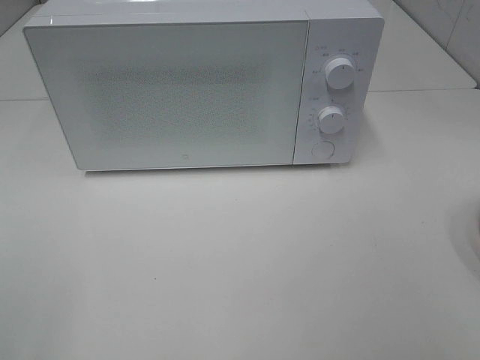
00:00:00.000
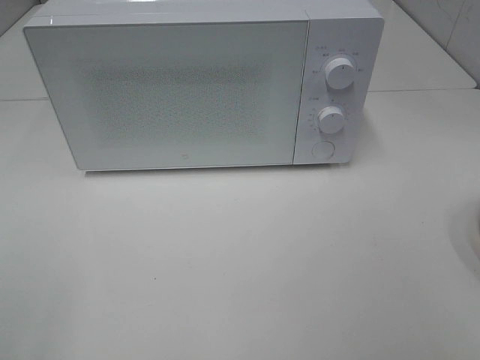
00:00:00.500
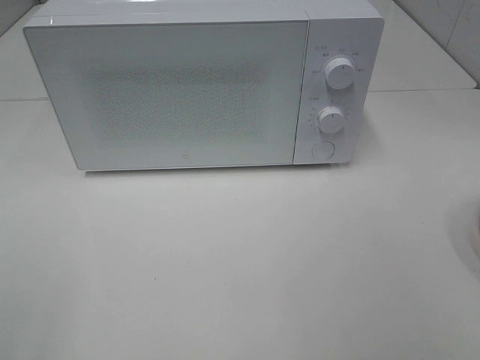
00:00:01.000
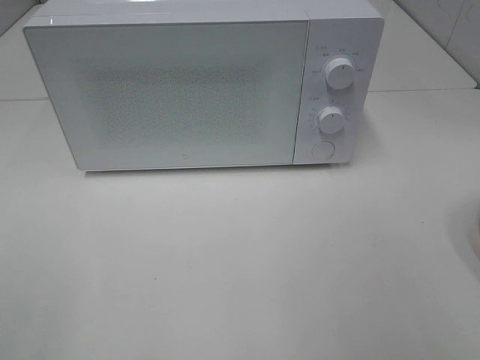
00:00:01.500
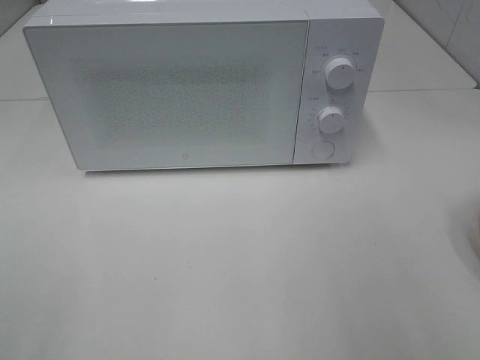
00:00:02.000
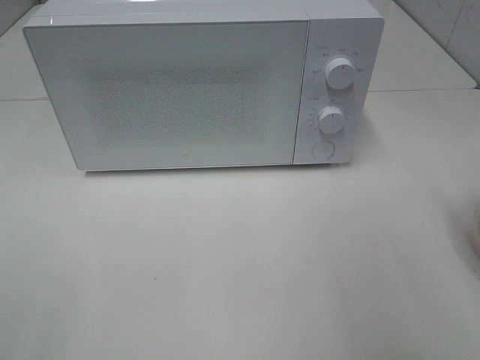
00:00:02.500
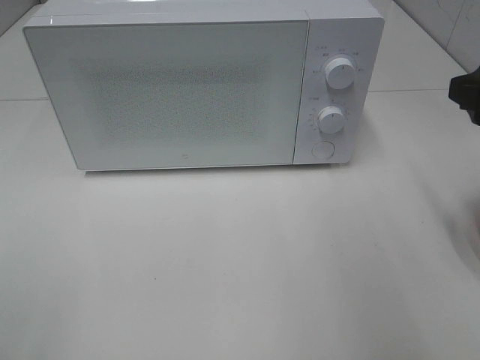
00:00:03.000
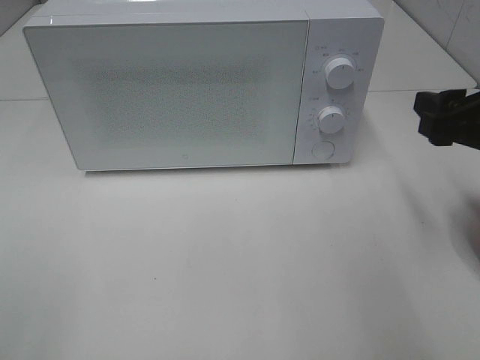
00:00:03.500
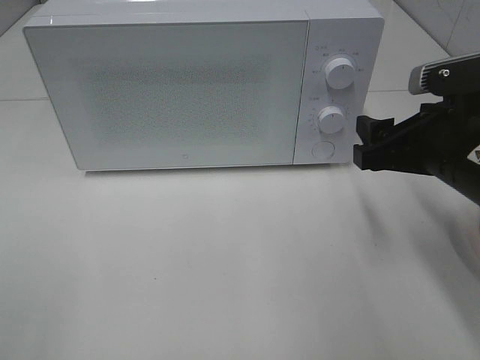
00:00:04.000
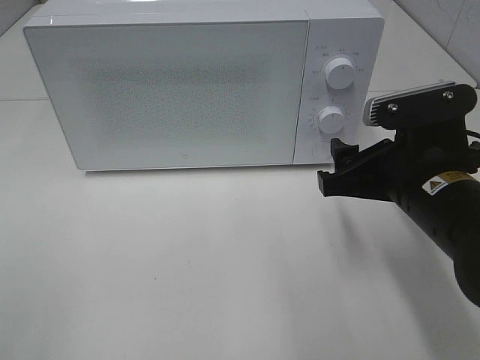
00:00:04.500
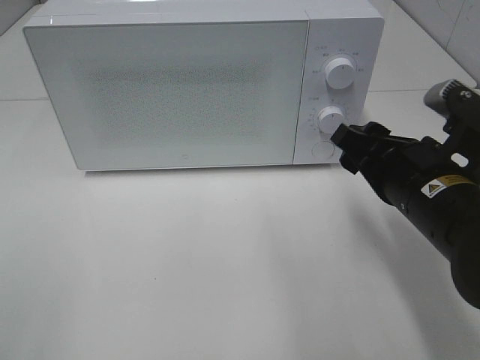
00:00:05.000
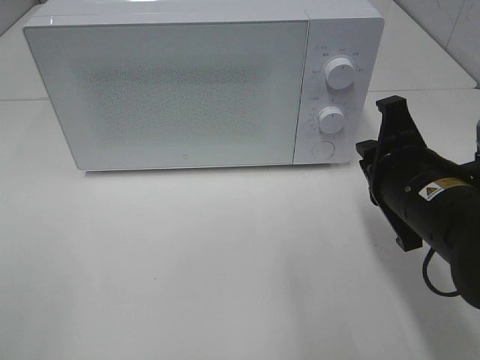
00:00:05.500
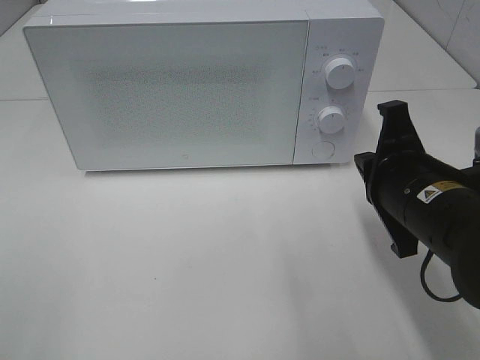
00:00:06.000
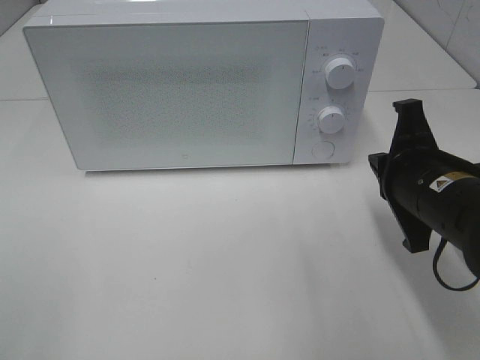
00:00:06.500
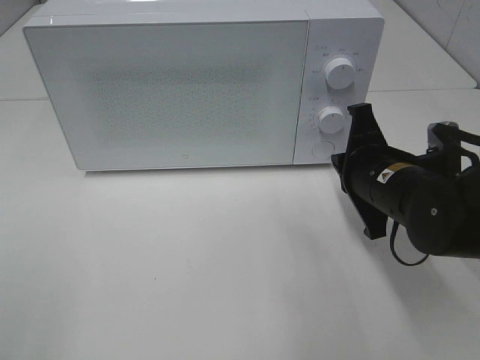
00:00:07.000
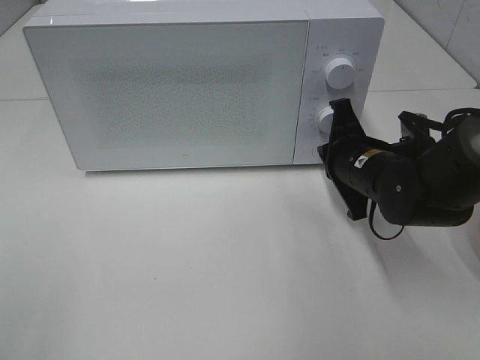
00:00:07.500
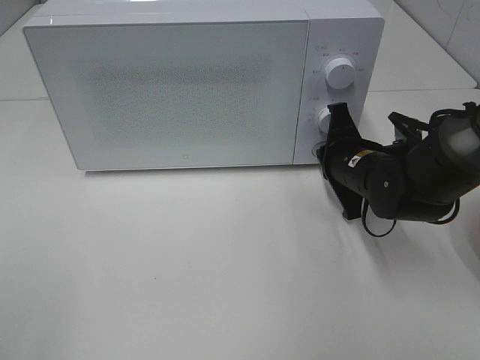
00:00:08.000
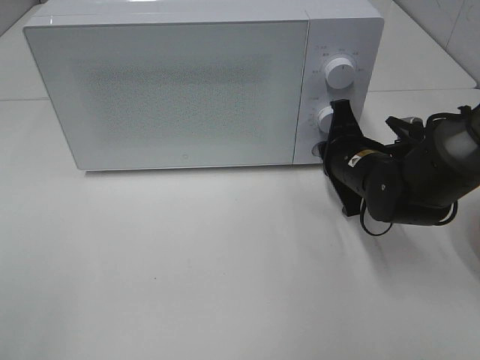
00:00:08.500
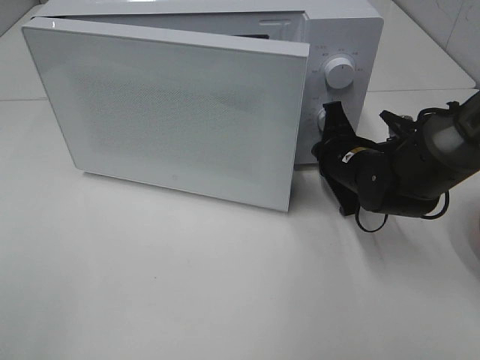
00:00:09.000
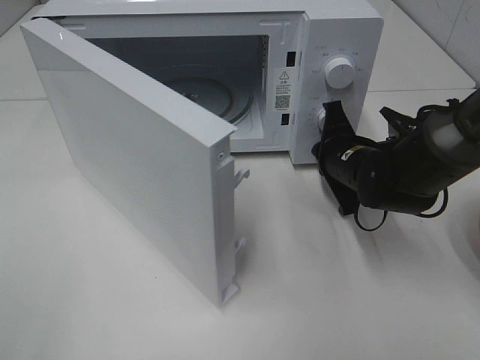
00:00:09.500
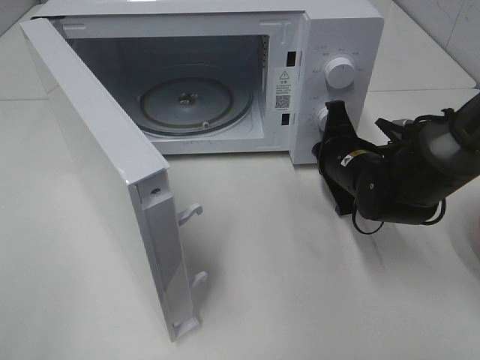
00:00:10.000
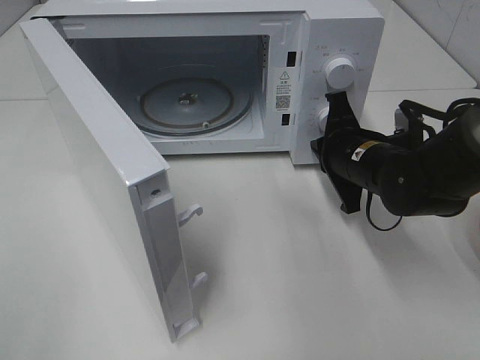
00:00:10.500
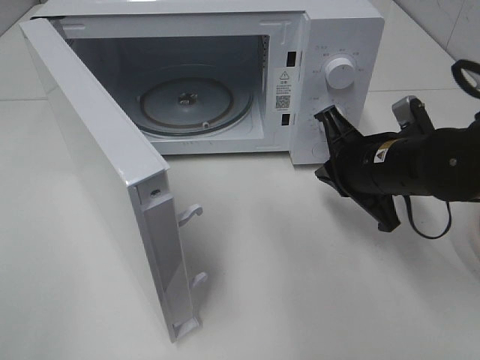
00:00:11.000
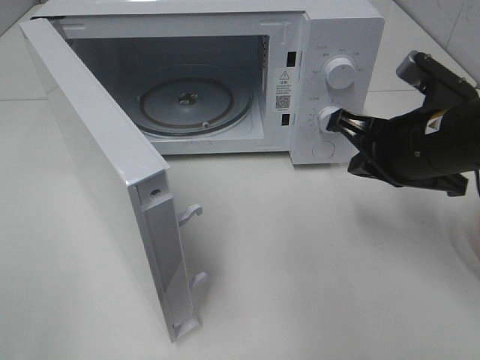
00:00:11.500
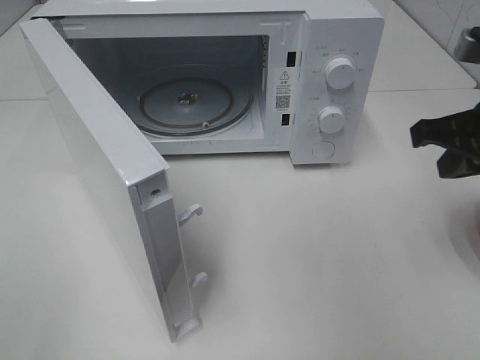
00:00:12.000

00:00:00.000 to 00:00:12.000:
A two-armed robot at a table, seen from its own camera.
Task of the whole recording: Heat the burger.
Step, 00:00:00.000 to 00:00:10.500: Right hand: press the switch.
00:00:02.000 to 00:00:04.000: The right gripper heads forward, downward and to the left, covering about 20 cm.
00:00:04.000 to 00:00:06.000: The right gripper moves about 5 cm, and closes.
00:00:06.000 to 00:00:08.000: The right gripper heads forward and downward, covering some 15 cm.
00:00:10.000 to 00:00:12.000: The right gripper is displaced upward, backward and to the right by approximately 20 cm.

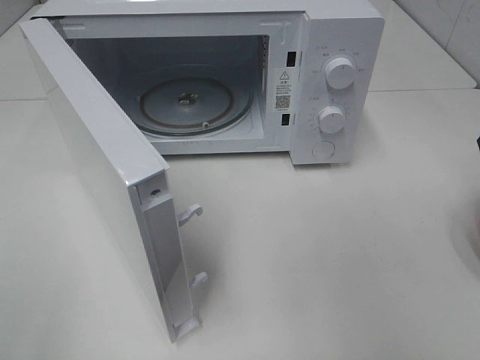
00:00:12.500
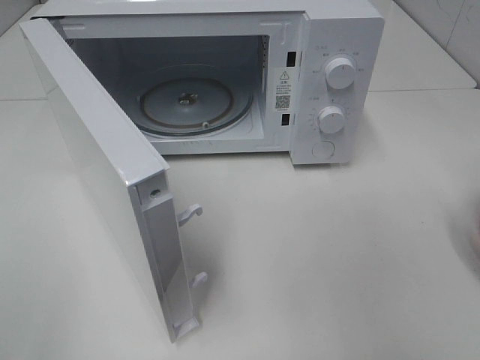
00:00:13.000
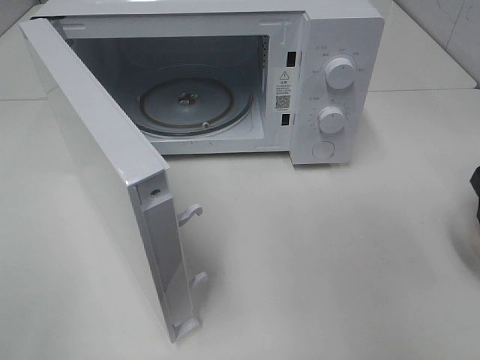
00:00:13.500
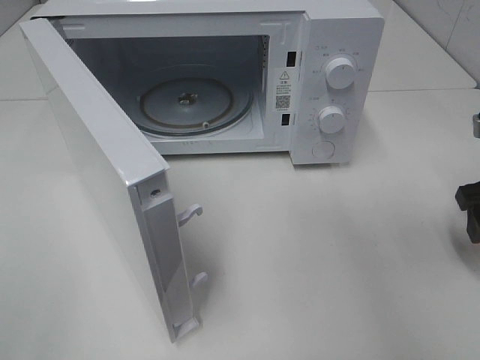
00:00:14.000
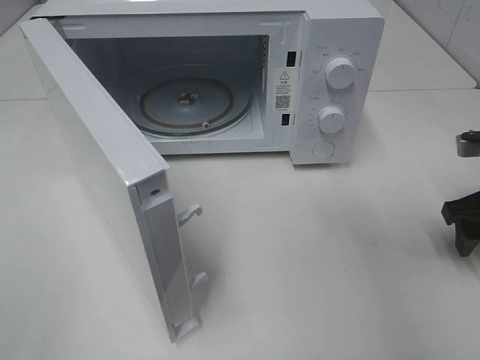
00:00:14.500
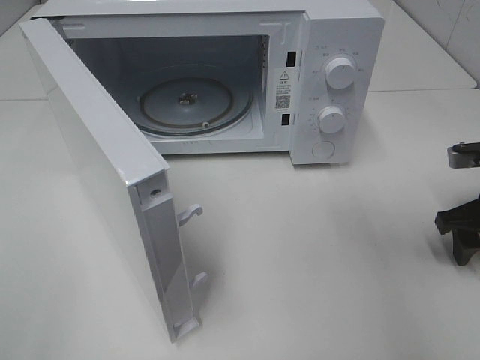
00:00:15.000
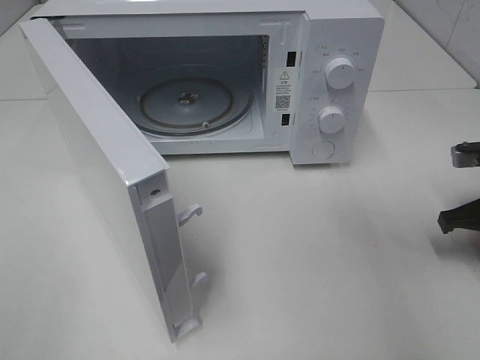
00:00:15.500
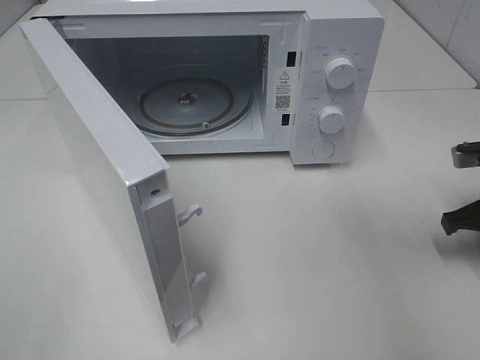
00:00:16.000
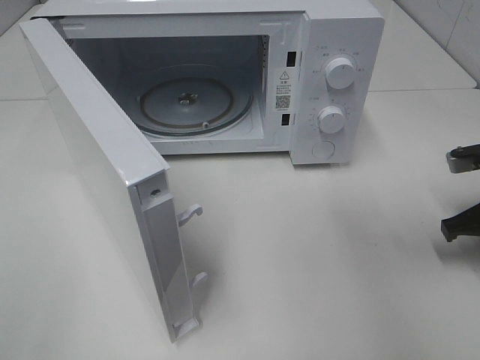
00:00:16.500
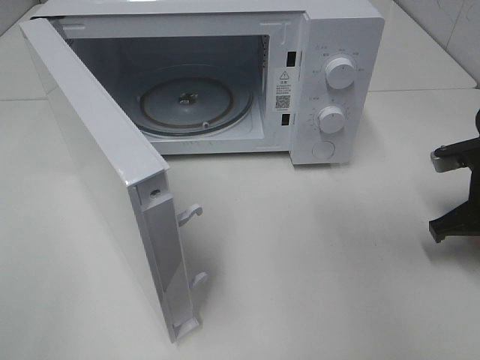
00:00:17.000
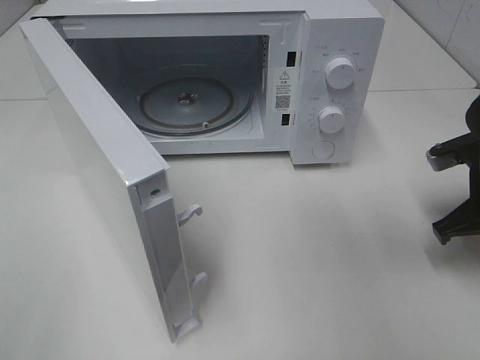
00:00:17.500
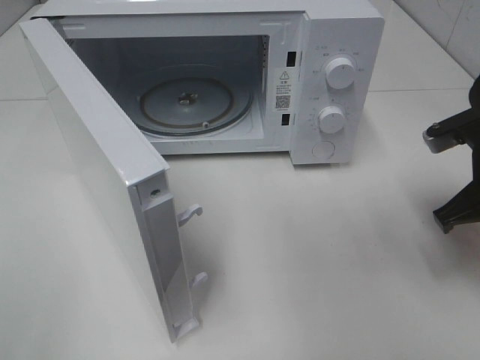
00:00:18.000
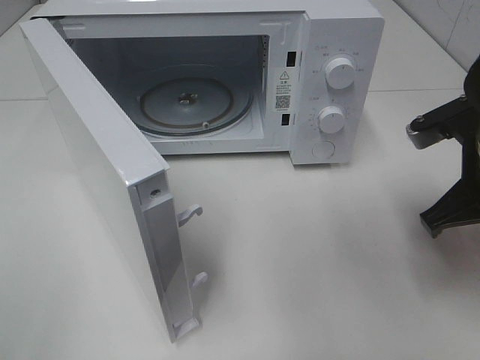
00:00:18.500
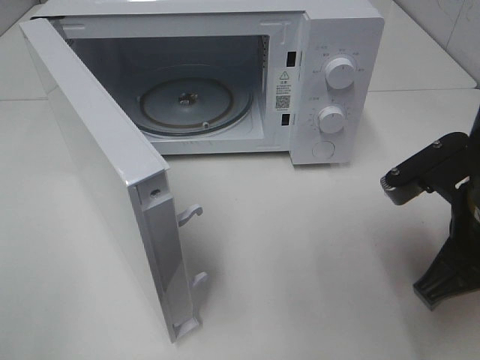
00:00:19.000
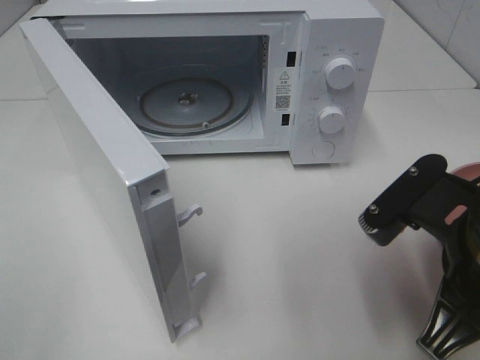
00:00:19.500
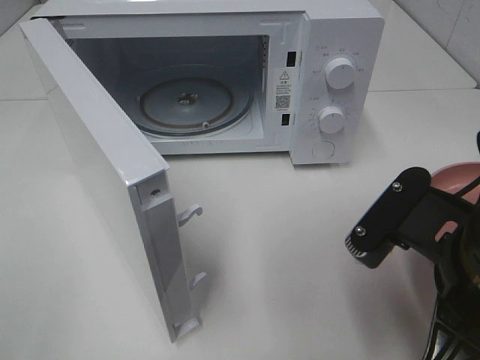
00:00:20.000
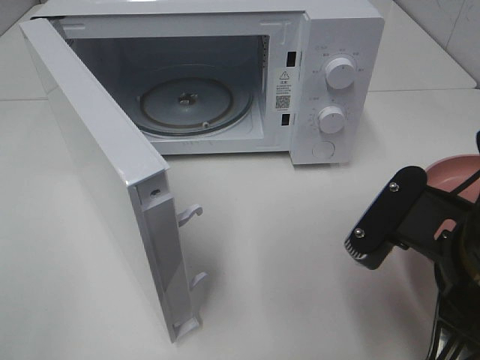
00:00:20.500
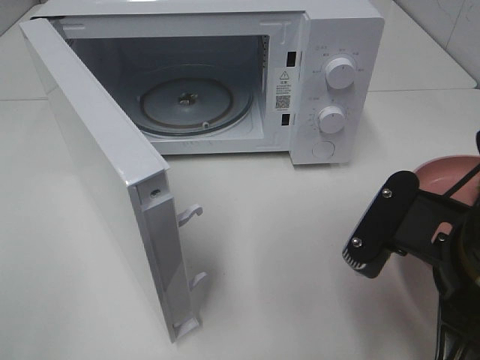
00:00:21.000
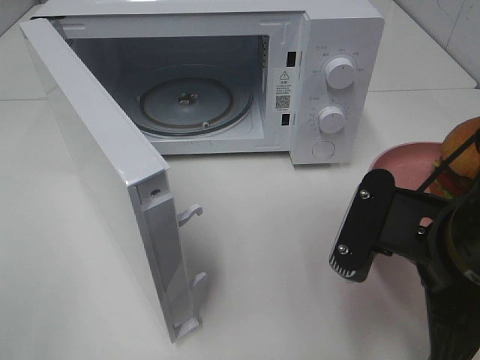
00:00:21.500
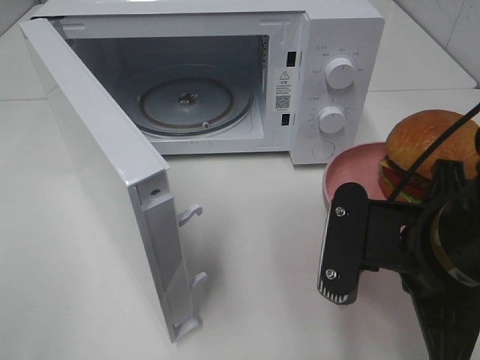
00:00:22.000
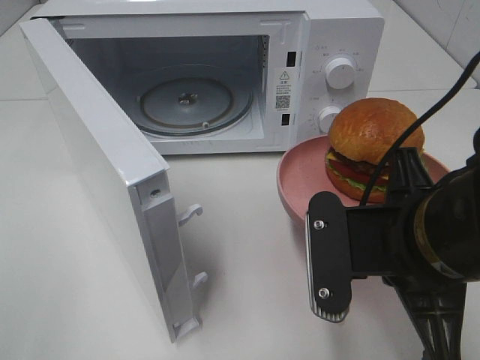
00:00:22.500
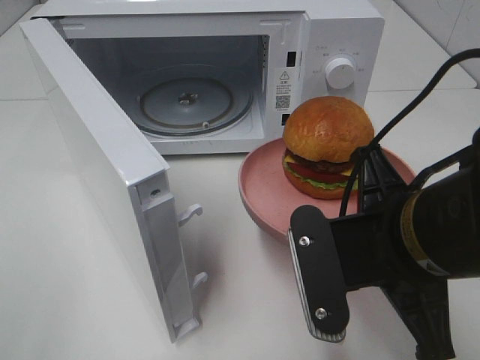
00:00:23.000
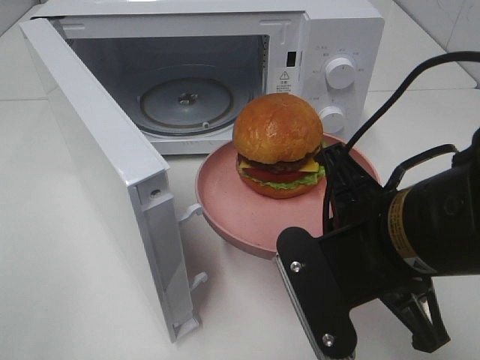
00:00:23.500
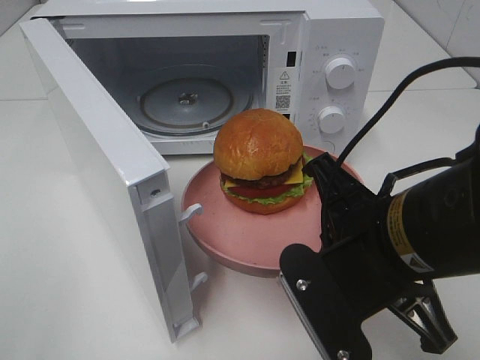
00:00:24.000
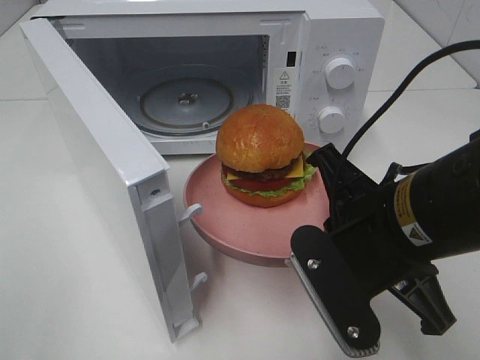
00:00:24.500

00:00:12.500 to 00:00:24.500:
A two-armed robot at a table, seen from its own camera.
Task of the whole recording: Heat the burger.
Step, 00:00:12.500 to 00:00:15.500: Right hand: grab the plate with the hamburger.
00:00:12.500 to 00:00:14.500: The right gripper is displaced downward by about 10 cm.
00:00:14.500 to 00:00:16.500: The right gripper closes up.
00:00:16.500 to 00:00:18.500: The right gripper shifts approximately 10 cm to the left and upward.
00:00:18.500 to 00:00:20.500: The right gripper is displaced backward and to the left by some 15 cm.

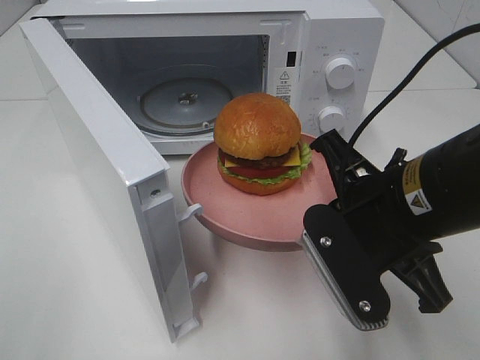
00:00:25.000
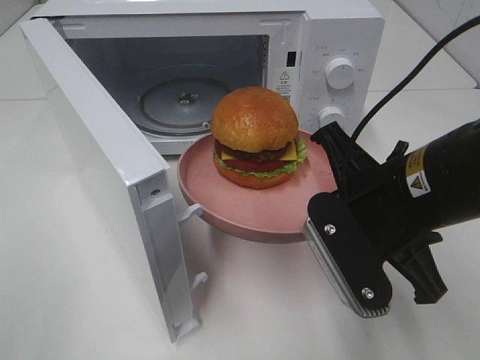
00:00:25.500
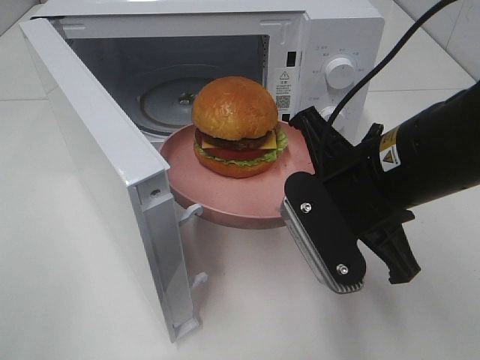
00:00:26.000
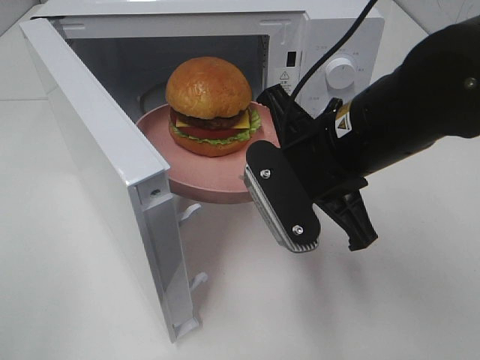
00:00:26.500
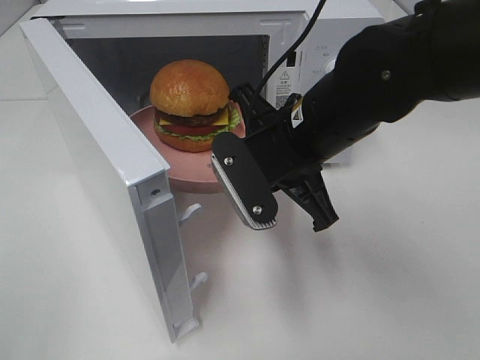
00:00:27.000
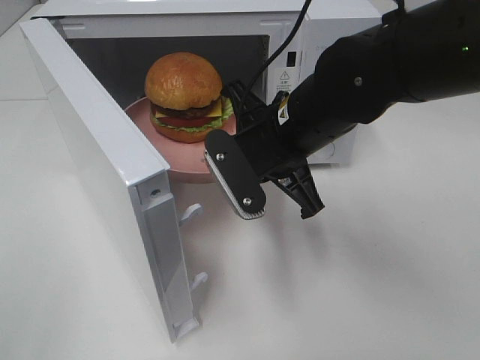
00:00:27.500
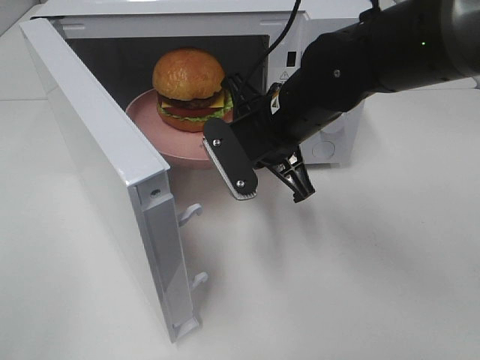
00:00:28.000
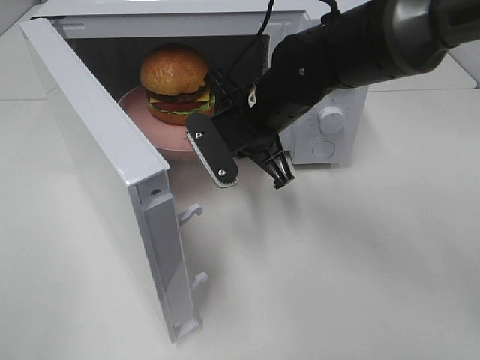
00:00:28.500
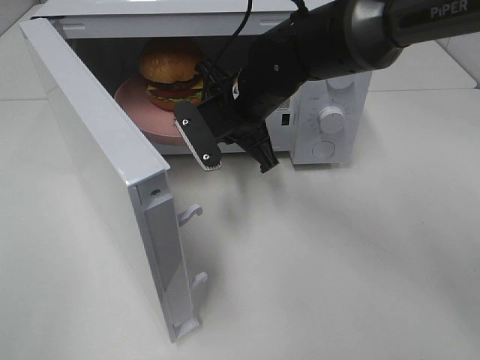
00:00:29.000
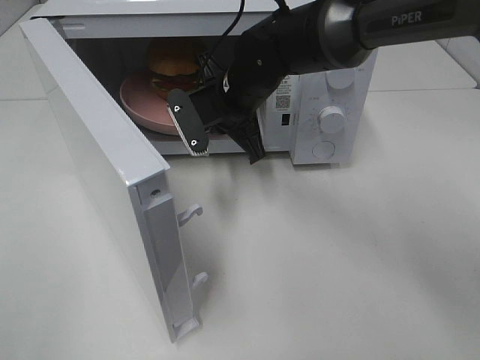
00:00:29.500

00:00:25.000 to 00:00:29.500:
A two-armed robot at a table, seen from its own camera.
Task of the whole recording: Heat the burger.
00:00:25.000 to 00:00:27.000: The right gripper moves forward and to the left, roughly 10 cm.
00:00:27.000 to 00:00:29.500: The right gripper is displaced forward and to the left by some 15 cm.
